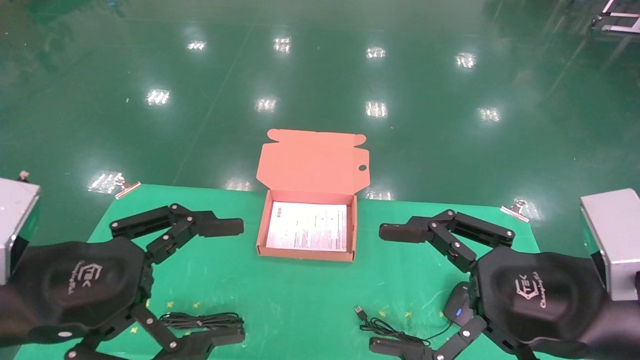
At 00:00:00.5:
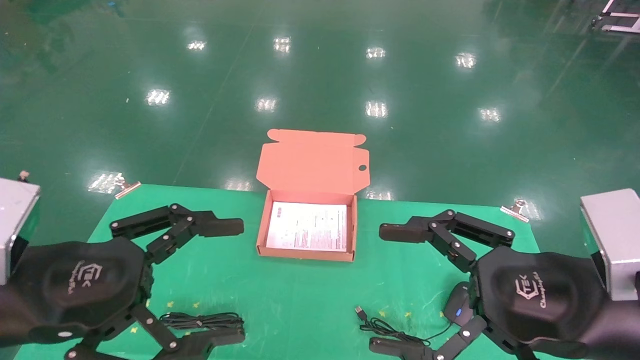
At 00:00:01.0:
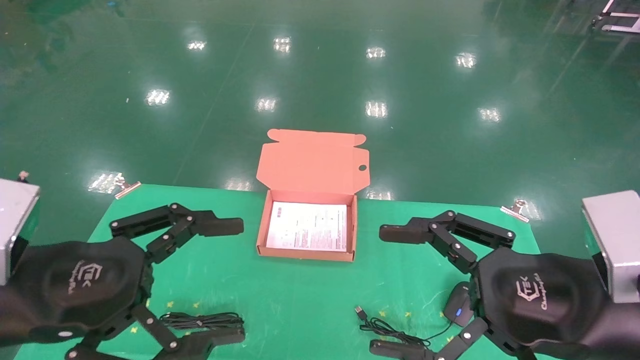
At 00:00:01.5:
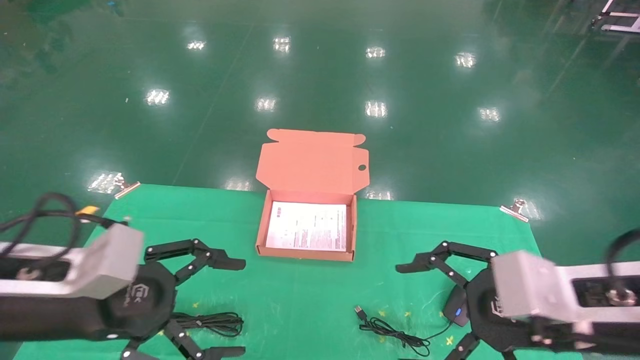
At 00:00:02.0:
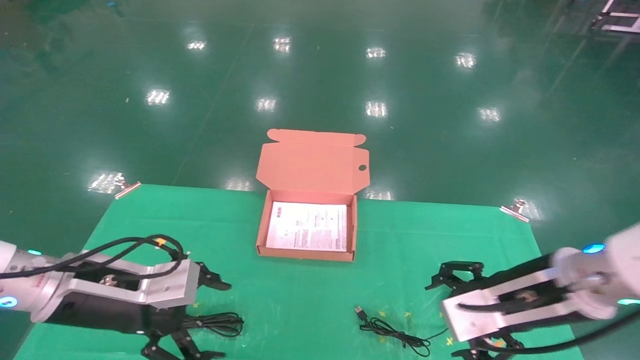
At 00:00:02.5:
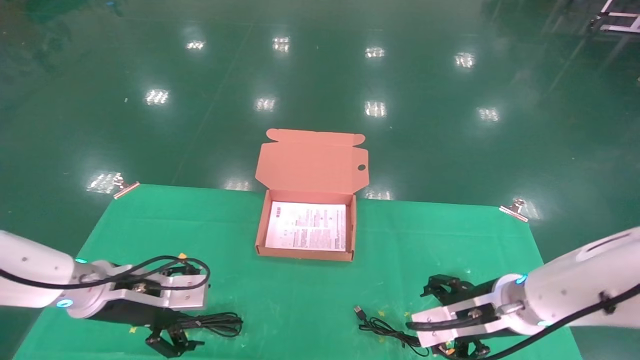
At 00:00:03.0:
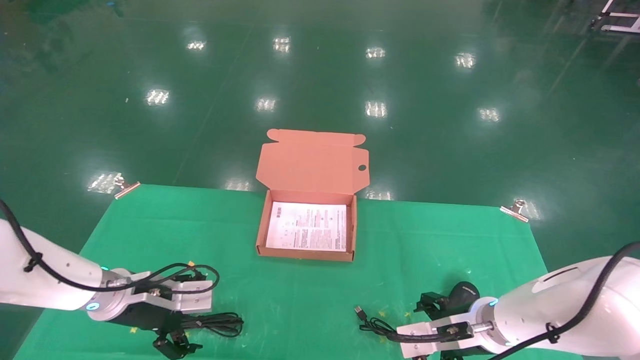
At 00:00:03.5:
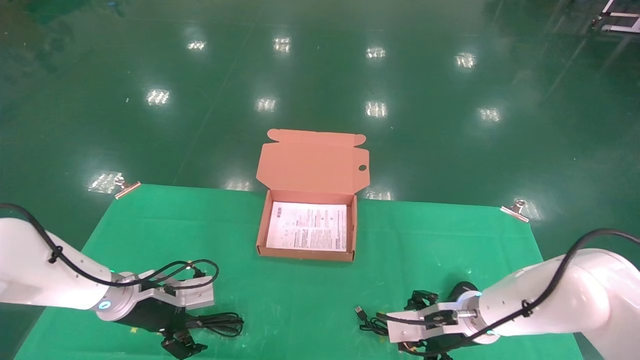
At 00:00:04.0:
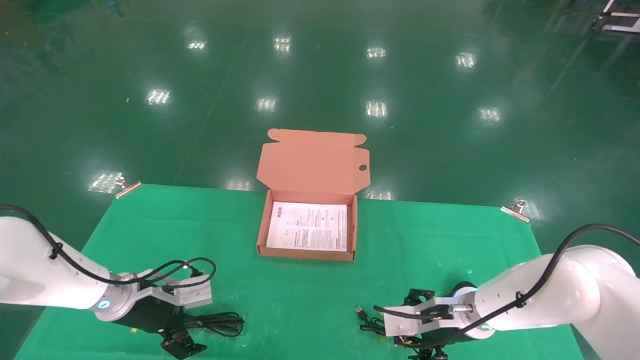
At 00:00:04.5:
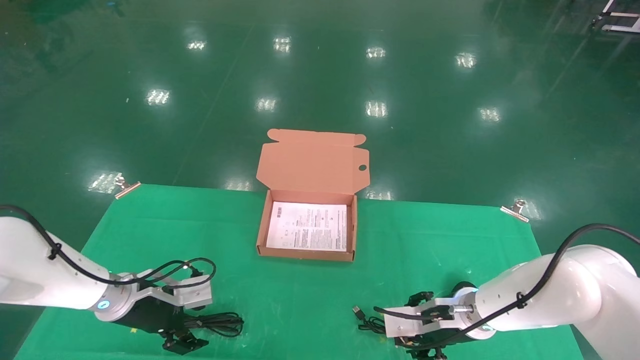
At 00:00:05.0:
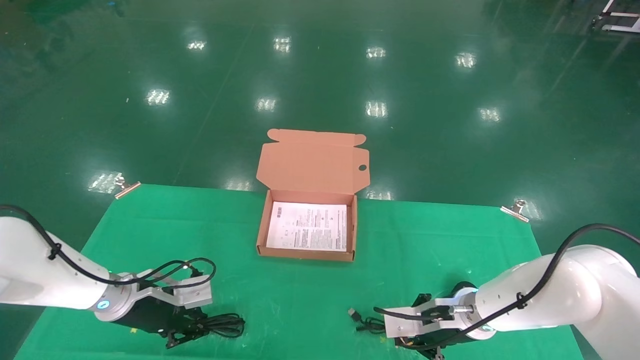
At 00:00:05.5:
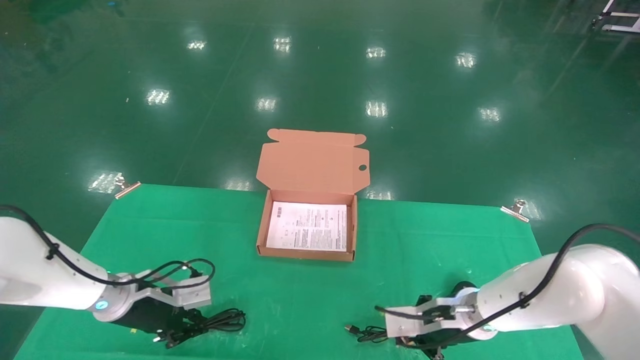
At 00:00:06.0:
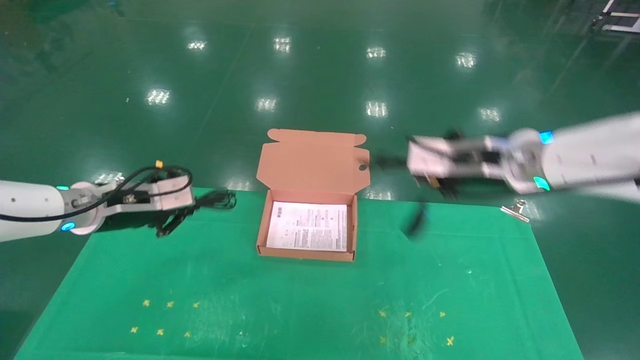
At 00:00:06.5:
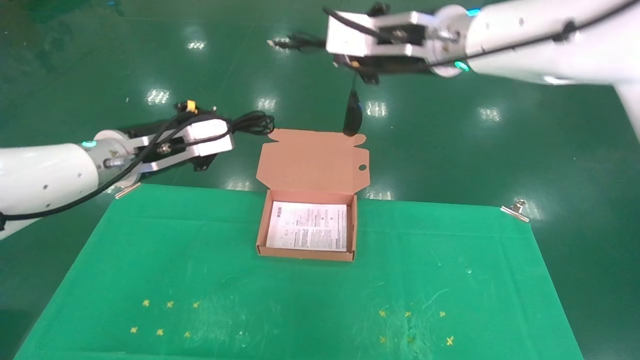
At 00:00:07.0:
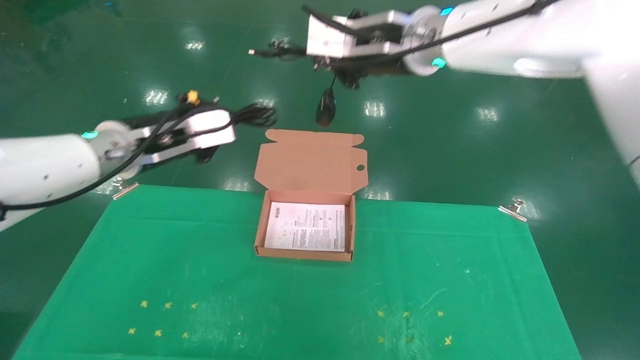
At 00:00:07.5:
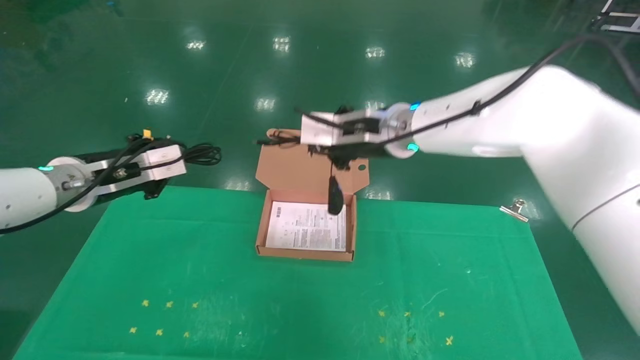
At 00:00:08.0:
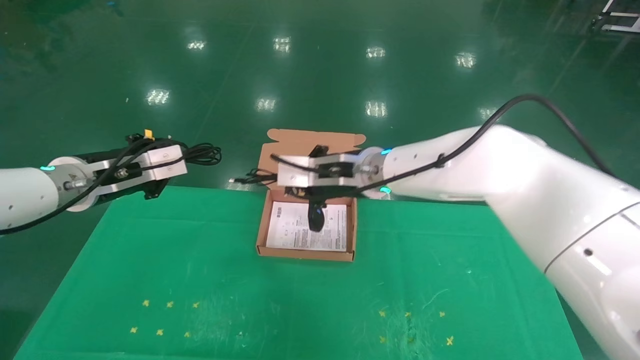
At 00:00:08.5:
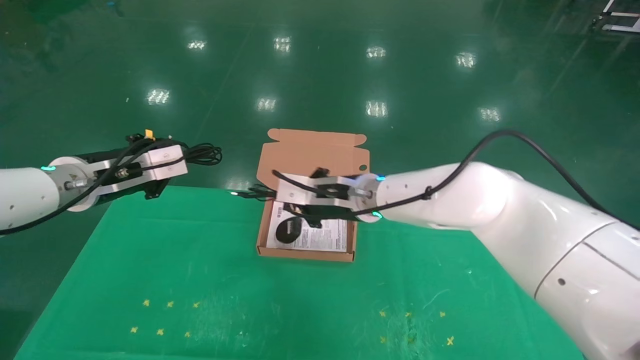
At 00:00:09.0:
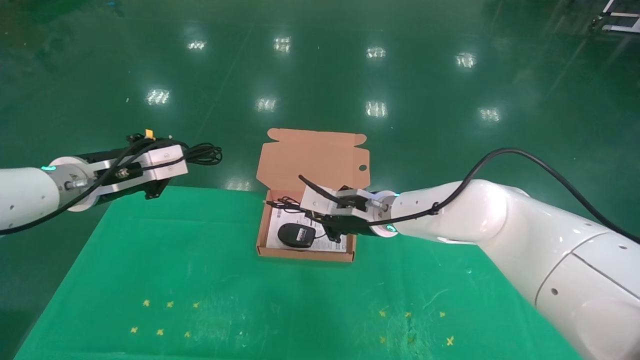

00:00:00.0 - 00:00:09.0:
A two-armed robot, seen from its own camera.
Task of the whole recording: grasp data cable left put into box grasp mouse right put into box.
Step, 00:00:01.5 - 00:00:05.0: Grab and pick up both the mouse and power cord from the accessory packaging area at the same time.
00:00:00.0 - 00:00:02.0: The two grippers go approximately 15 cm forward and downward.
00:00:02.0 - 00:00:04.5: The left gripper travels forward and downward by about 15 cm. Meanwhile the right gripper shifts about 15 cm downward and forward.
00:00:04.5 - 00:00:07.0: The right gripper moves upward, some 35 cm, and closes. The left gripper moves upward, about 25 cm, and closes.
00:00:07.0 - 00:00:09.0: The right gripper moves downward, some 25 cm. Meanwhile the left gripper shifts some 5 cm to the left.

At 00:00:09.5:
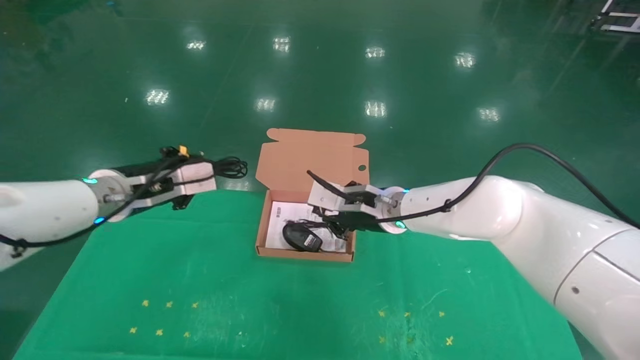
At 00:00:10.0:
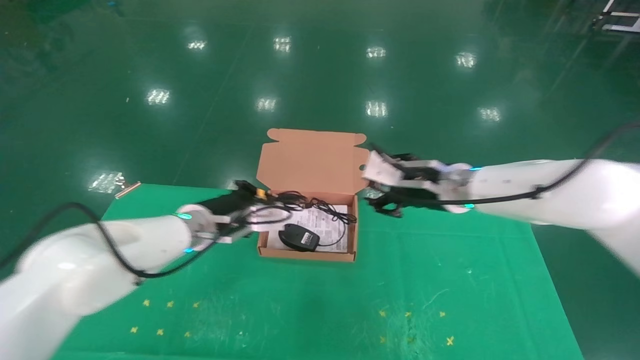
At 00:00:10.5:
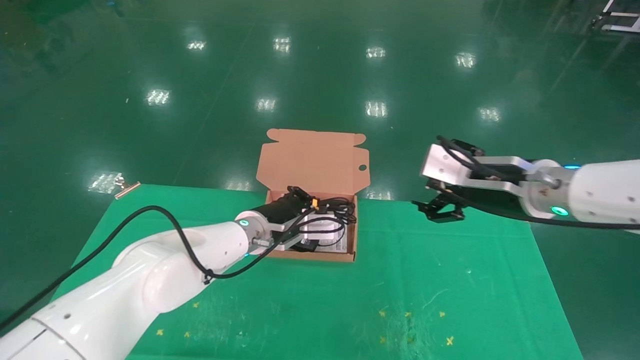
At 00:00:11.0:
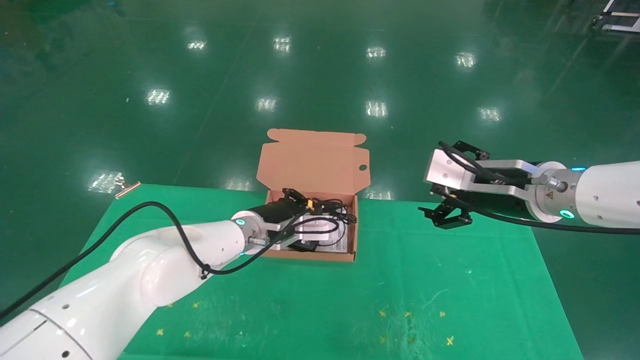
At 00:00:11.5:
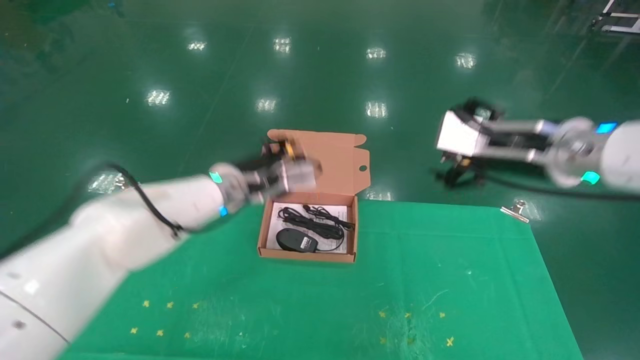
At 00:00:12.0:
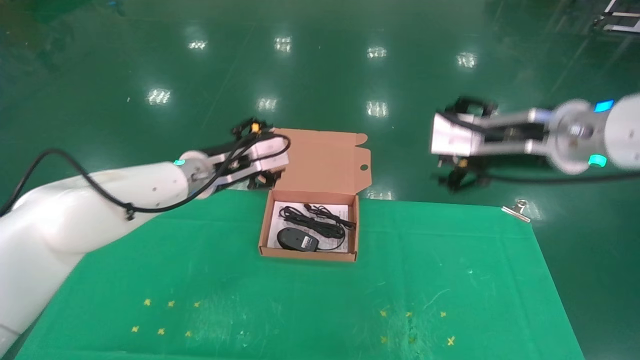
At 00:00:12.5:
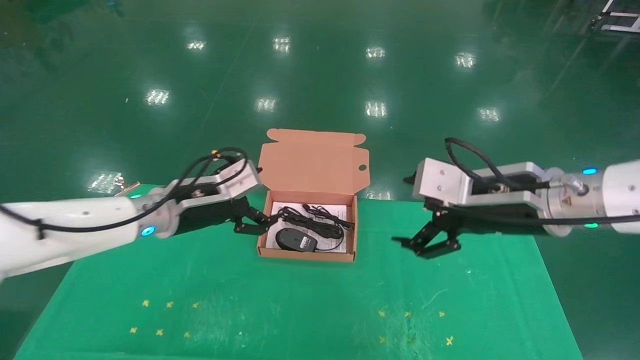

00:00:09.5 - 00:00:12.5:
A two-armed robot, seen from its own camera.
Task of the whole recording: grasp data cable left put into box grasp mouse right put into box.
Step, 00:00:09.5 - 00:00:11.5: Place the mouse and power cord into the box.
00:00:09.5 - 00:00:11.0: The left gripper travels to the right and downward by some 20 cm. The right gripper shifts some 20 cm to the right, backward and upward, and opens up.
00:00:11.0 - 00:00:12.5: The left gripper moves to the left, backward and upward, approximately 15 cm, and opens.
